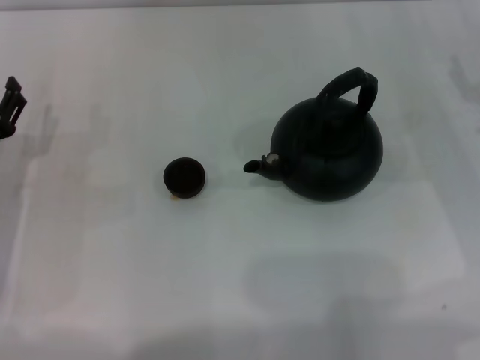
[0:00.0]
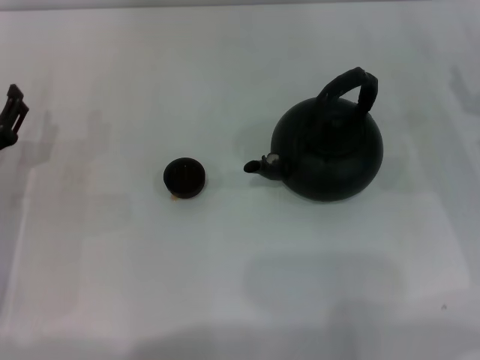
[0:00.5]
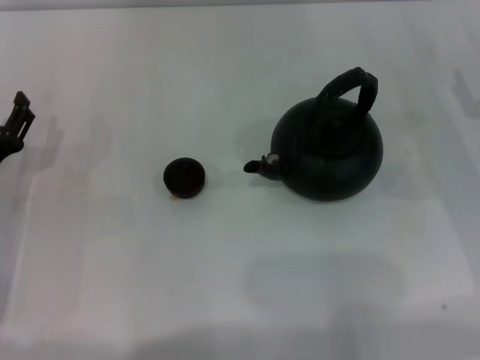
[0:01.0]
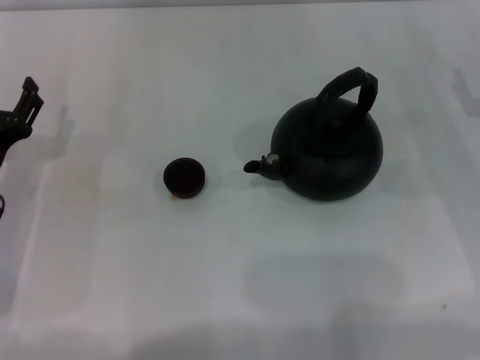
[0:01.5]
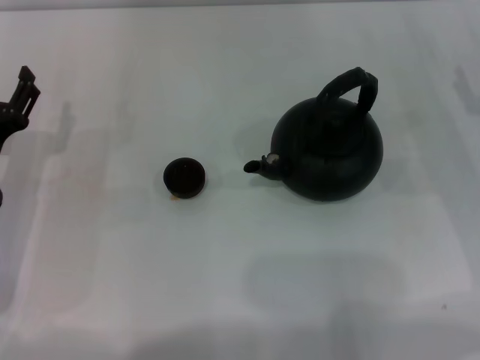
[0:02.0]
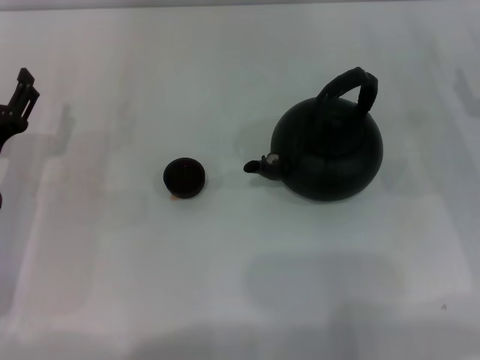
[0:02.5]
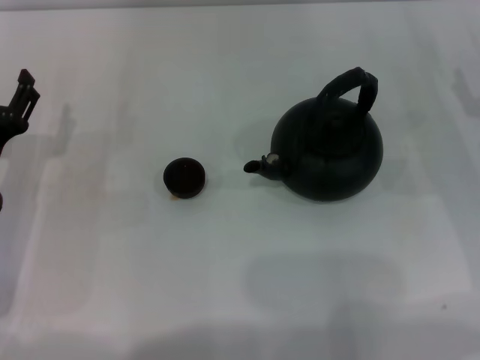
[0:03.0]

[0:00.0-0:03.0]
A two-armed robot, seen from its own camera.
Task of the whole recording: Grasp the handle of the teapot with one hand and pour tea into the teacup.
0:00.0 to 0:01.5: The grippers stay close to where they were, moving slightly.
0:01.5 to 0:03.0: The two grippers keep their place.

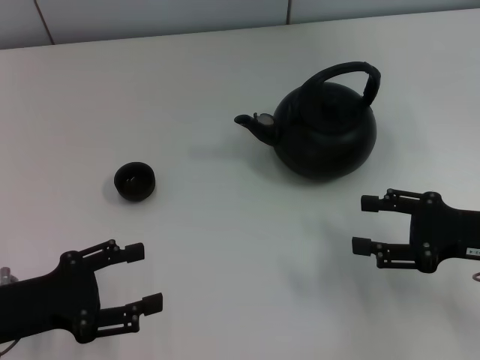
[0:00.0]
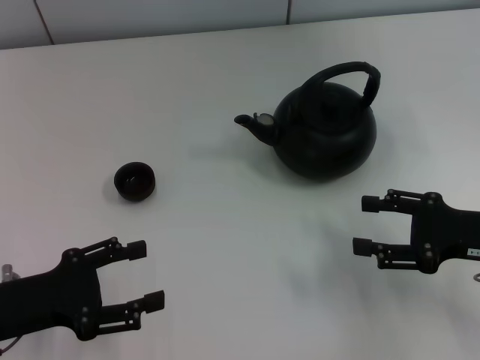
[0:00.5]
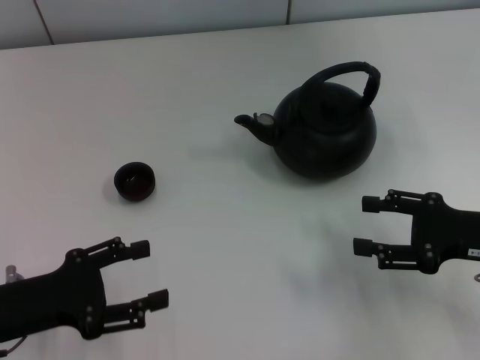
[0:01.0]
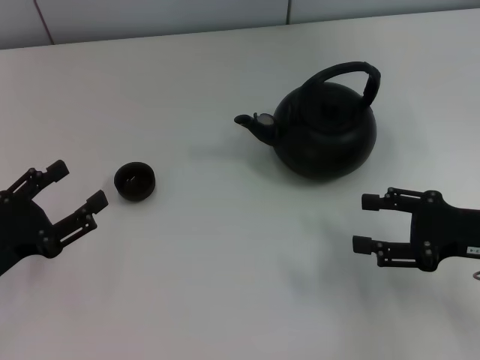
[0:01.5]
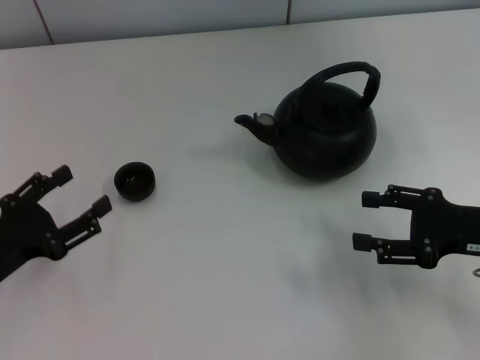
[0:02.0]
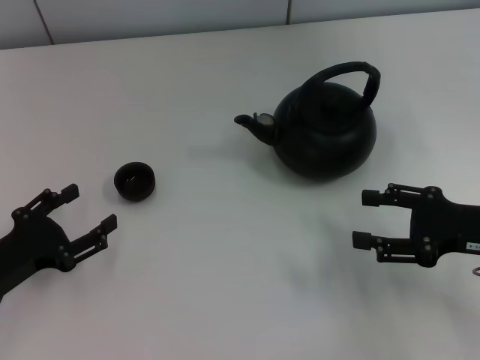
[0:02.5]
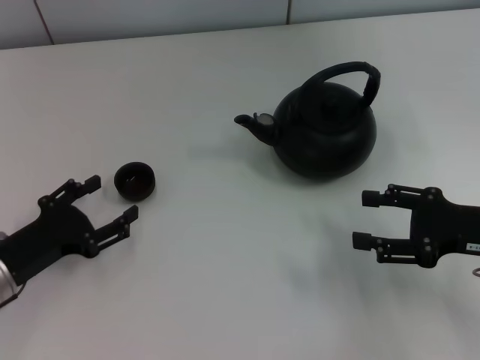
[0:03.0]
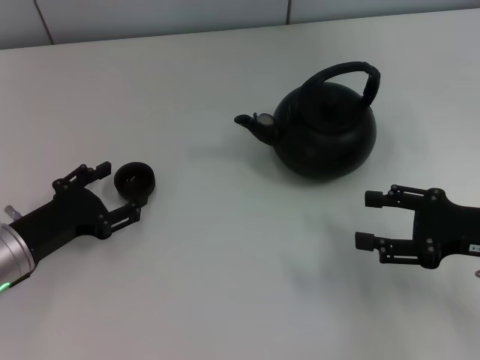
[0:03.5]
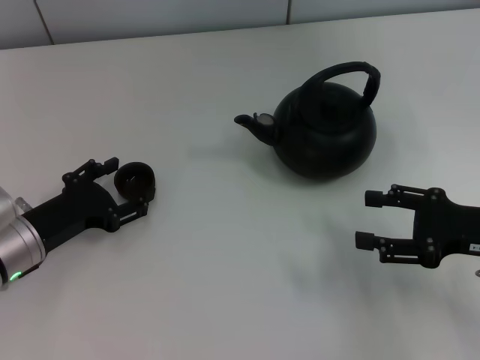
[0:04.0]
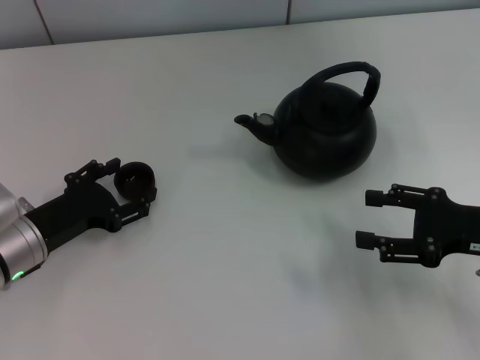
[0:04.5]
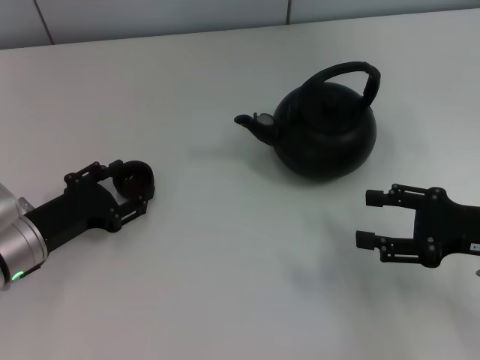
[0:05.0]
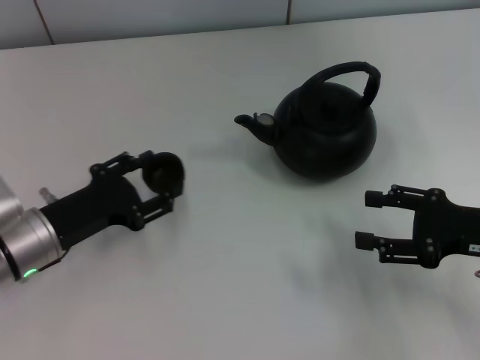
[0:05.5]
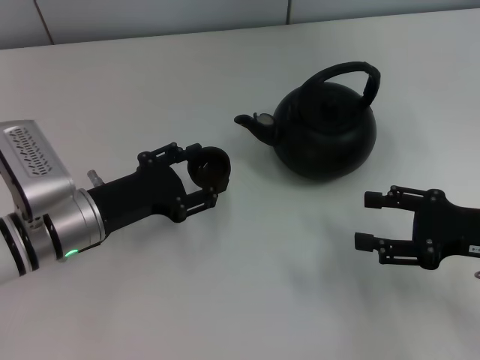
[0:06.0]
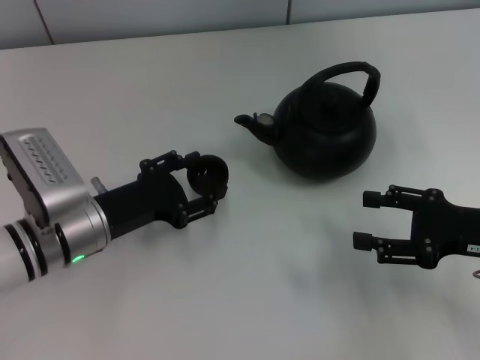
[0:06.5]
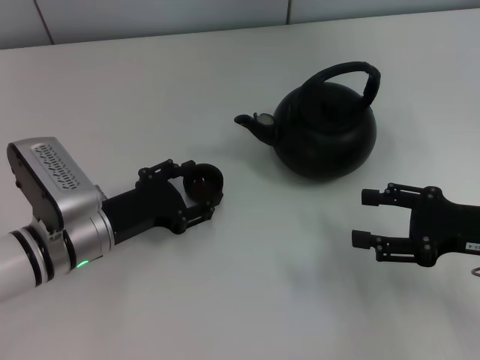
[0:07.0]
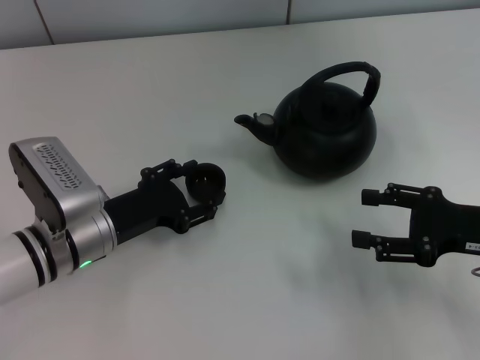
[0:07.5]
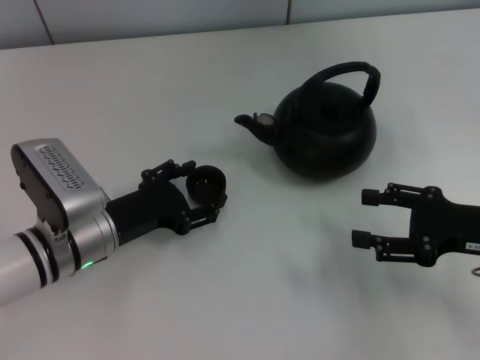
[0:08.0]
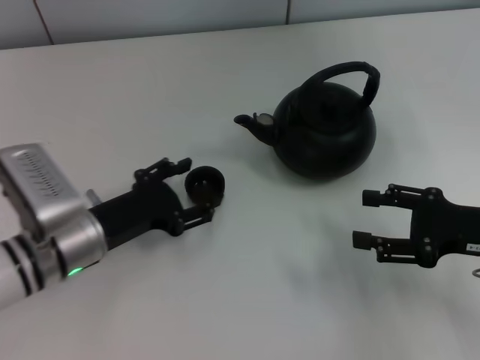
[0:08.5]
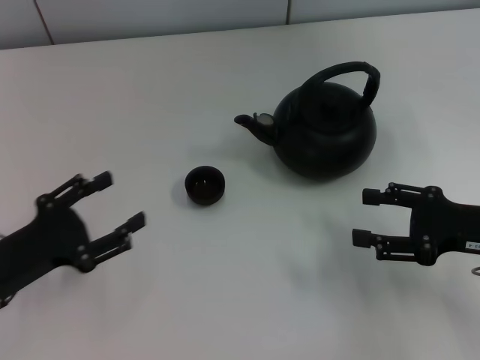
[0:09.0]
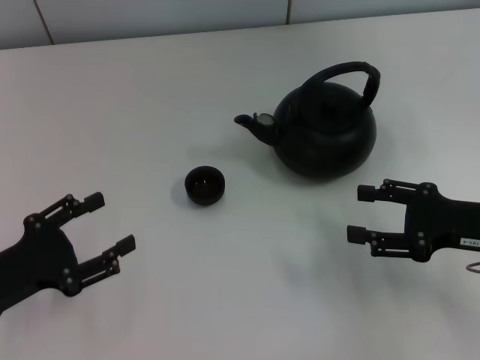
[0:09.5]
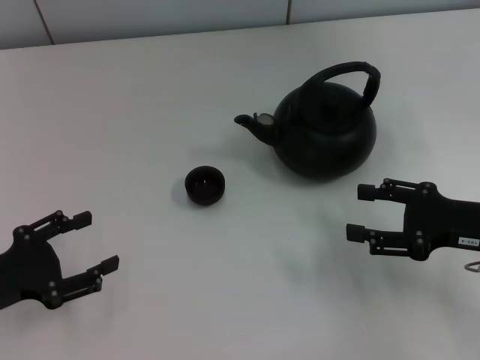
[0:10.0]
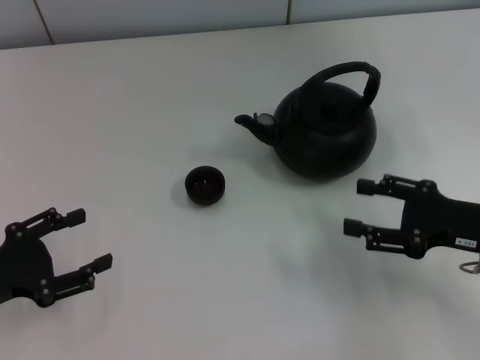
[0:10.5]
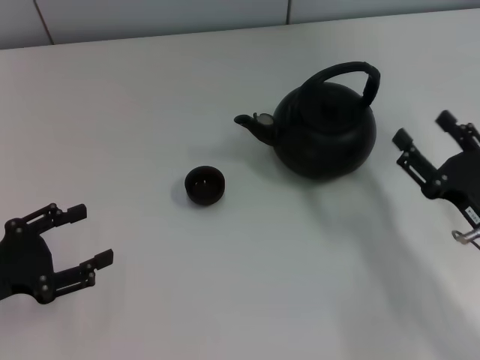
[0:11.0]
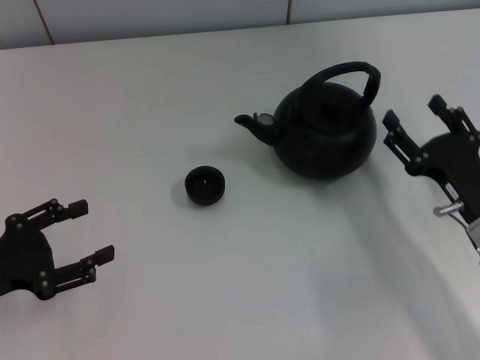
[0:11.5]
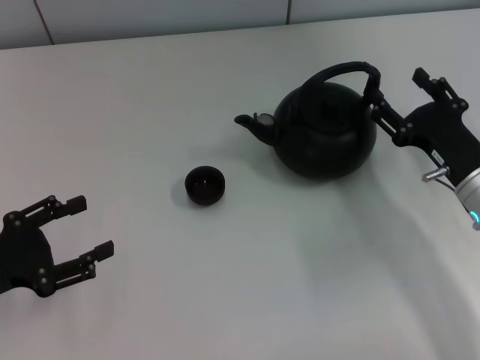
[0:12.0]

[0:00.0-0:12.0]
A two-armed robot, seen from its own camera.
Task of the whole recording: Grasp the handle of the teapot with one hand and pour tea into the teacup.
Step, 0:00.0 to 0:05.5: Pick up the teacup with the left gripper.
Step, 0:06.0 to 0:09.0: Place the teacup in the center of view with the left gripper.
0:02.0 to 0:04.0: The left gripper travels forward by some 5 cm.
0:04.0 to 0:06.0: The left gripper goes about 5 cm to the right, and closes up.
0:06.0 to 0:08.0: The grippers make only small movements.
0:08.0 to 0:10.0: The left gripper goes some 15 cm to the left and backward.
0:10.0 to 0:12.0: The right gripper shifts by approximately 5 cm.

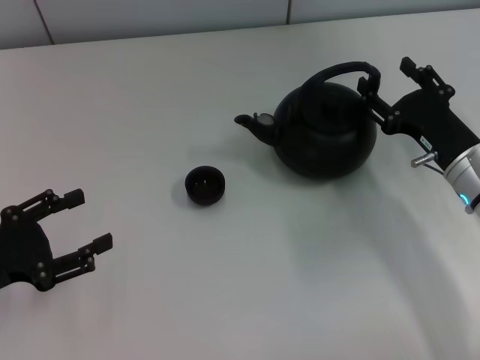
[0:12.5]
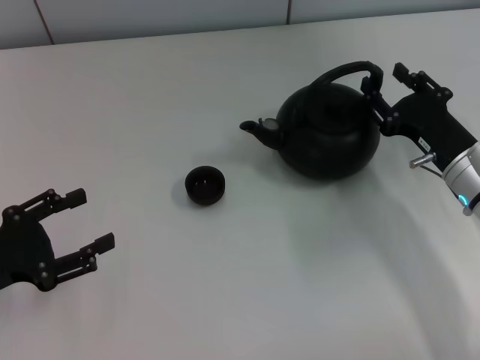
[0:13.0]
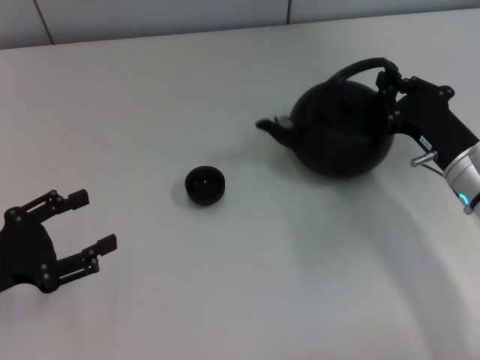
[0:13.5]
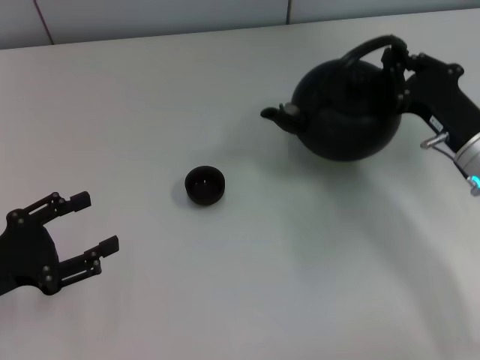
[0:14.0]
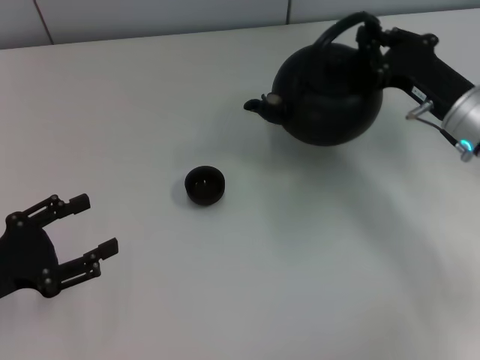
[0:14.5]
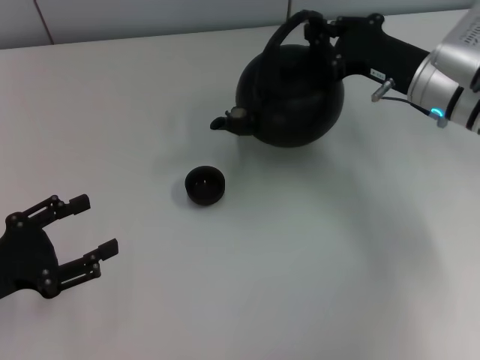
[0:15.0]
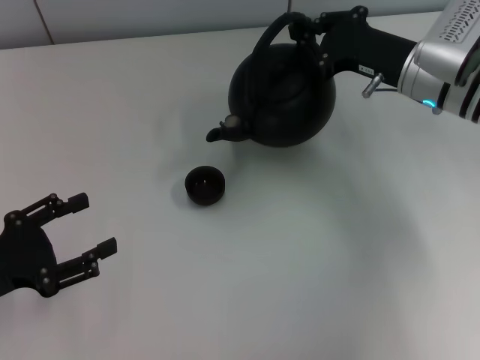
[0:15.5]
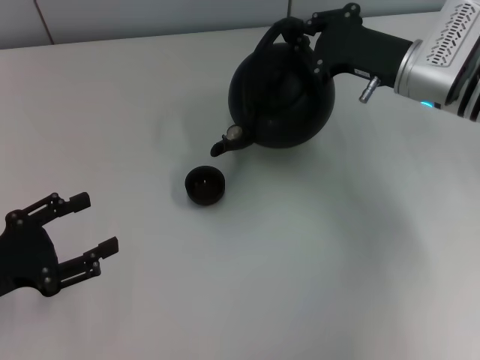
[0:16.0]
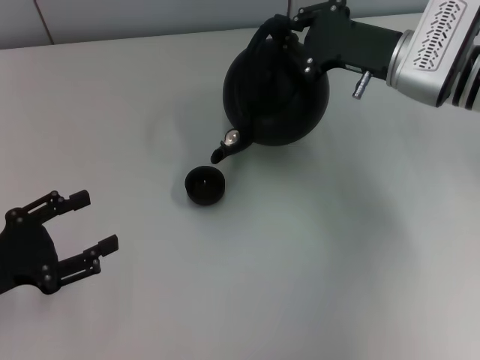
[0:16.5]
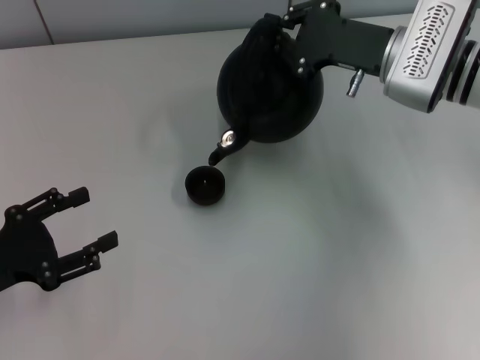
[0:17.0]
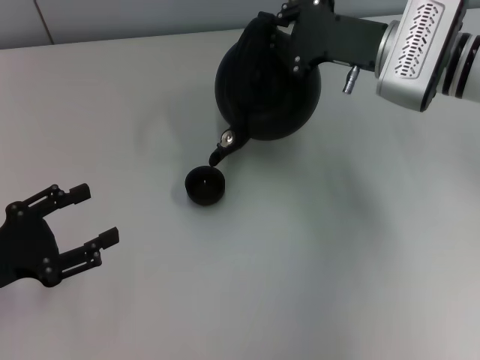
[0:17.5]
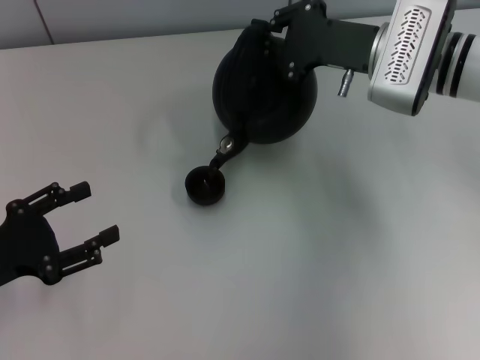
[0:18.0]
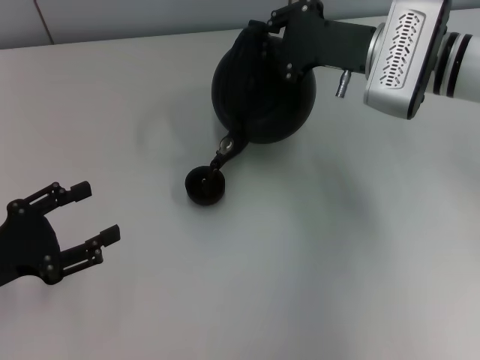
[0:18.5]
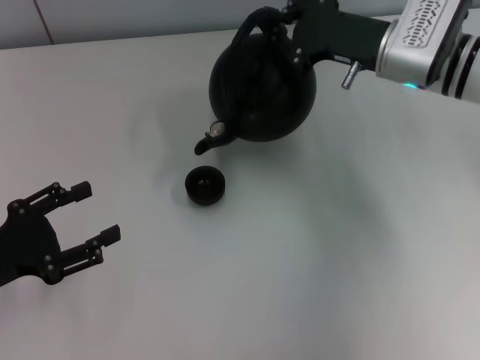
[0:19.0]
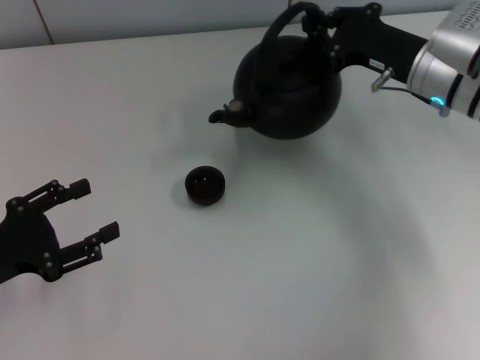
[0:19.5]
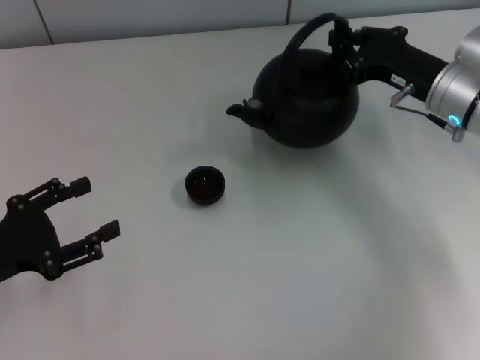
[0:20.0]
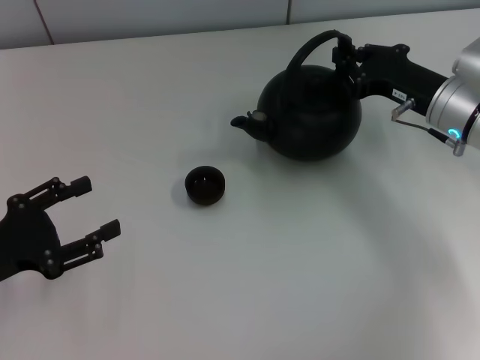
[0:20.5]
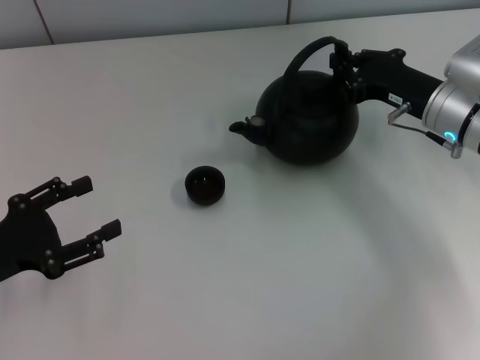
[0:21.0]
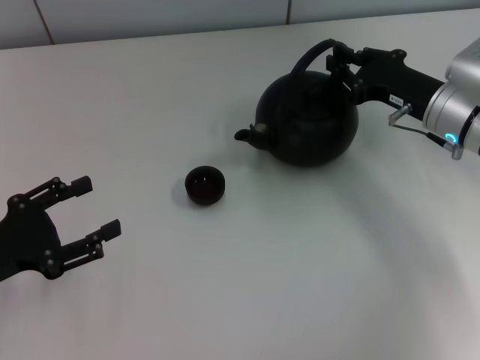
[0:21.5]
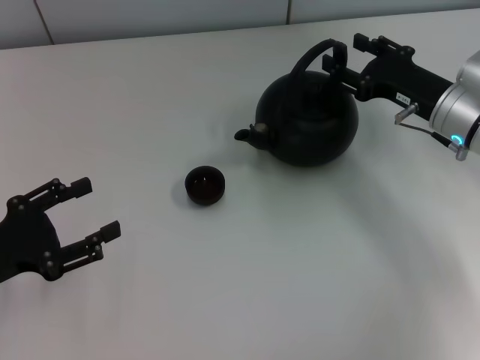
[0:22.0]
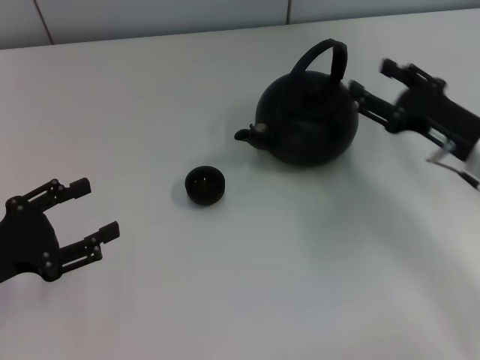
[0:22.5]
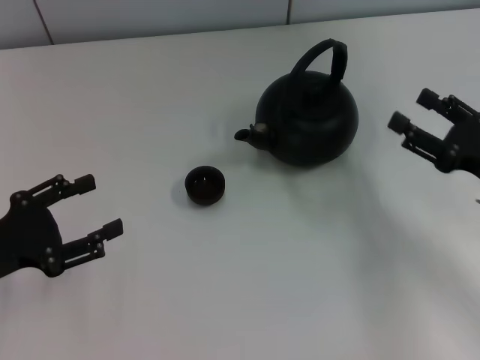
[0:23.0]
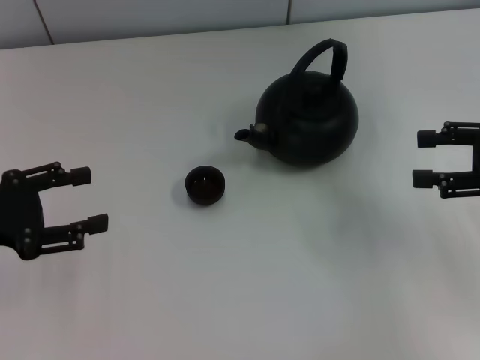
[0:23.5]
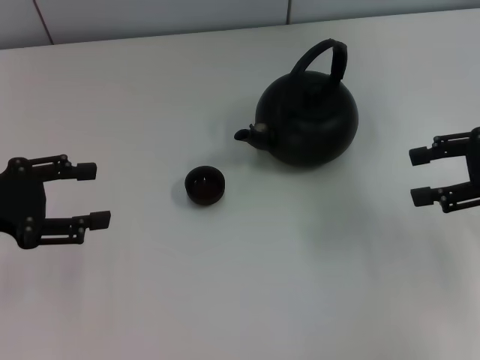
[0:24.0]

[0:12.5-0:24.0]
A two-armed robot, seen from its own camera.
Task of the whole recording: Grasp the handle of the teapot with one hand and pour tea into the teacup.
Step, 0:19.5 to 0:22.0: Put down the teapot with the right gripper.
0:12.5 to 0:14.5: The right gripper shifts by about 5 cm, and closes.
0:14.5 to 0:16.5: The right gripper is displaced forward by approximately 5 cm.
0:16.5 to 0:18.5: There are only small adjustments of the grippers.
0:18.5 to 0:20.0: The right gripper moves to the right, some 5 cm.
0:20.0 to 0:22.0: The right gripper opens.
0:22.0 to 0:24.0: The right gripper is displaced to the right, upward and backward by about 15 cm, and opens, while the left gripper shifts about 10 cm forward and upward.
